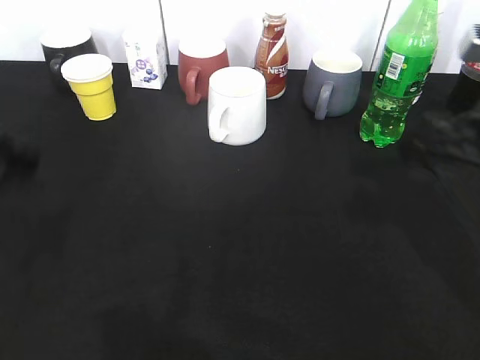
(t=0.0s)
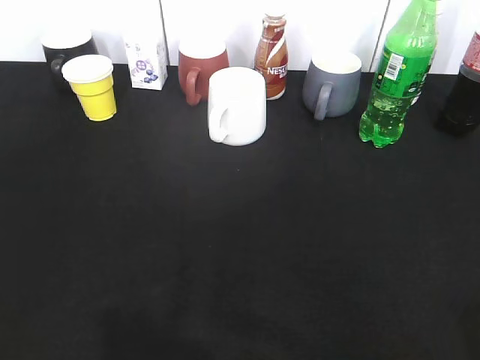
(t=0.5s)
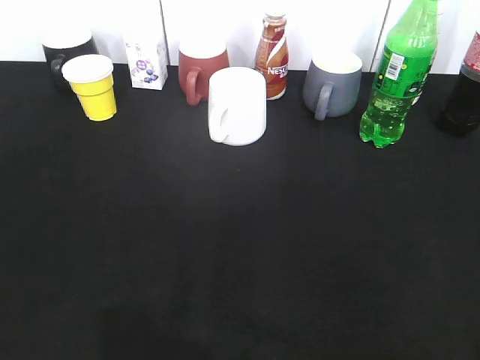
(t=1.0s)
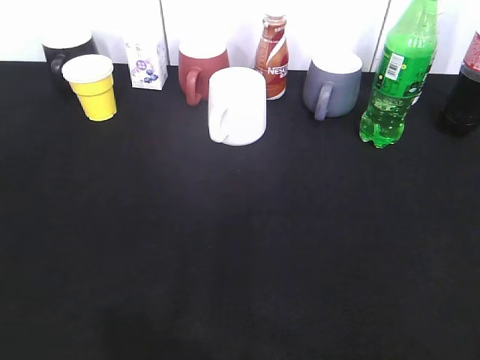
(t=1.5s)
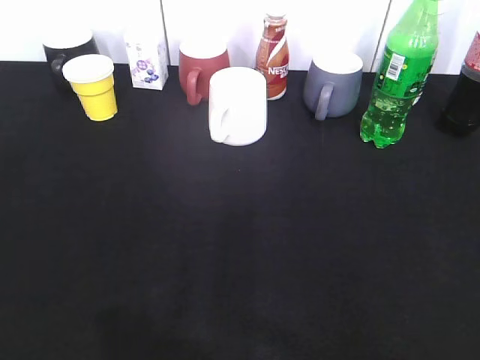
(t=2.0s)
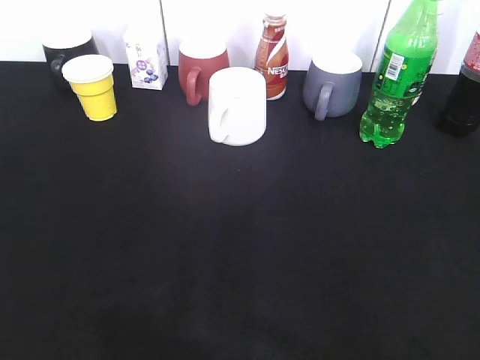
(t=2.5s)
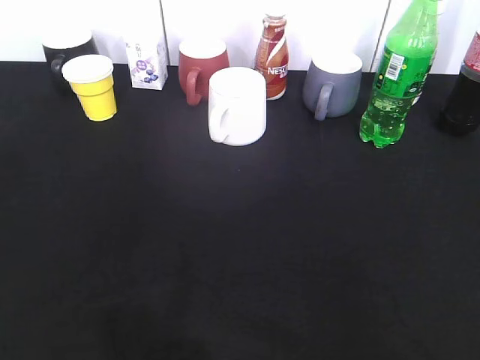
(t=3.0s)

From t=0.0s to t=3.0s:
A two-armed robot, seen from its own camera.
From t=0.0s to t=1.5s: The left gripper moves backward, some 15 cm; the right gripper goes roughly 25 cm backward.

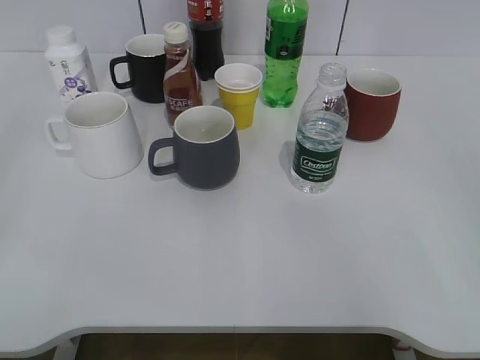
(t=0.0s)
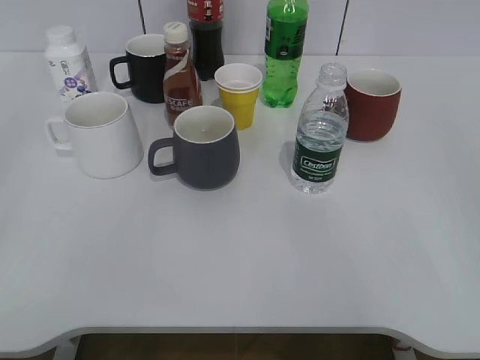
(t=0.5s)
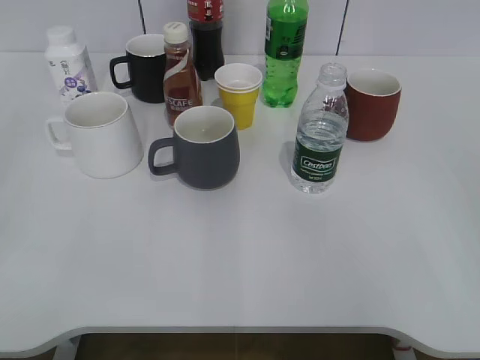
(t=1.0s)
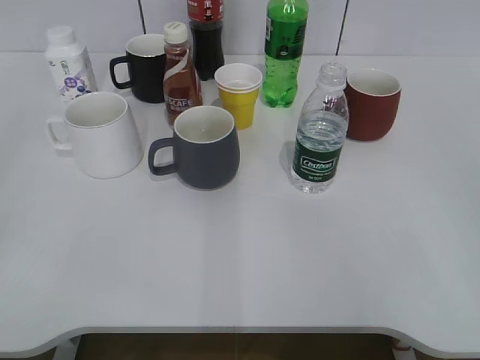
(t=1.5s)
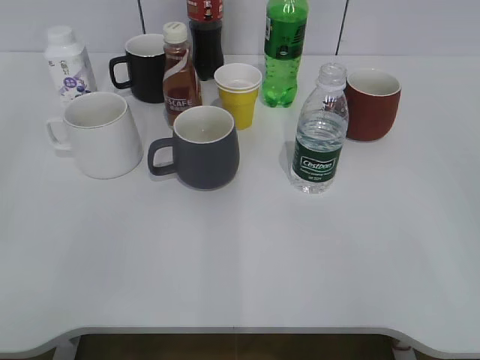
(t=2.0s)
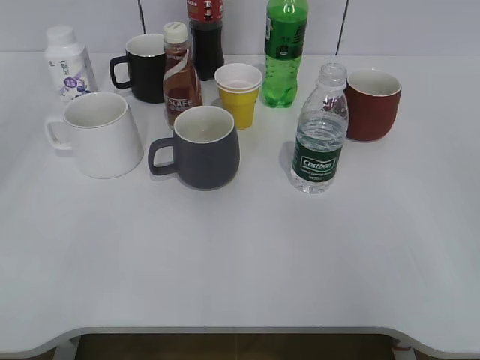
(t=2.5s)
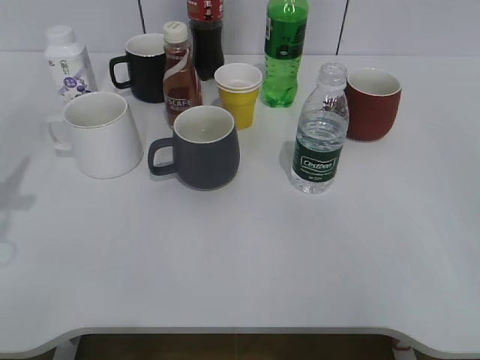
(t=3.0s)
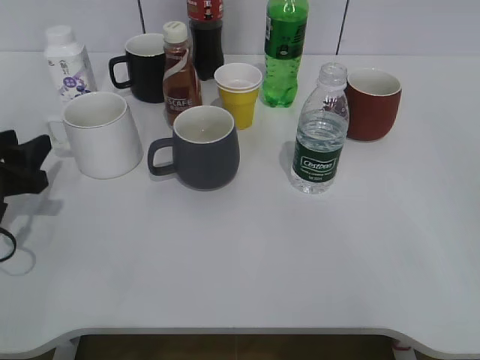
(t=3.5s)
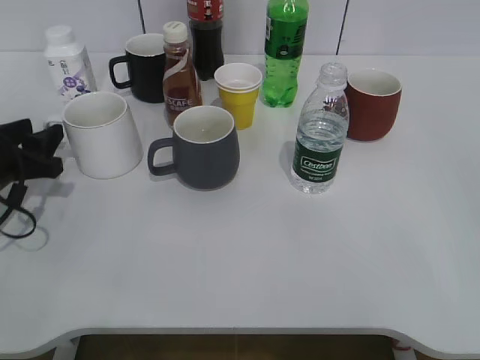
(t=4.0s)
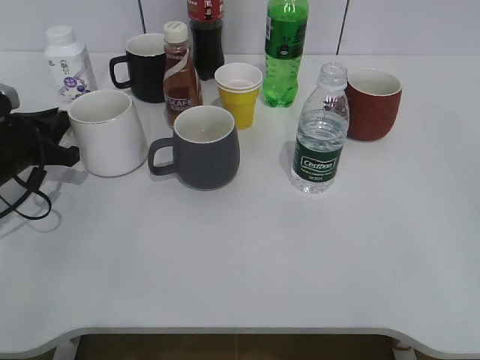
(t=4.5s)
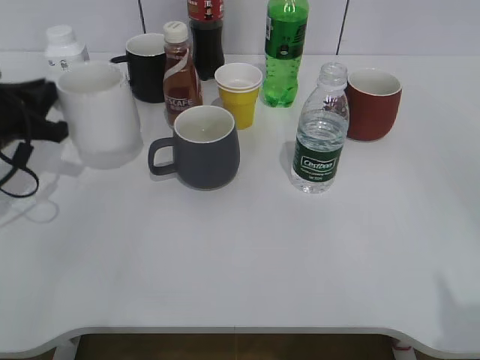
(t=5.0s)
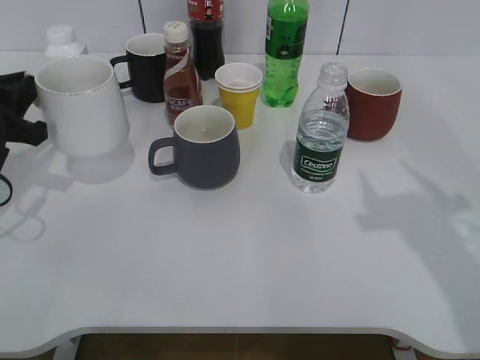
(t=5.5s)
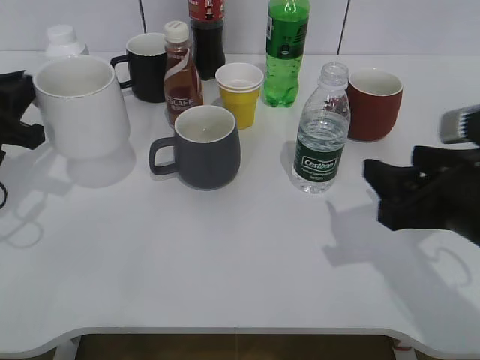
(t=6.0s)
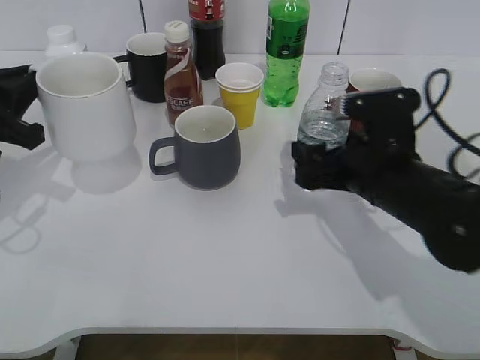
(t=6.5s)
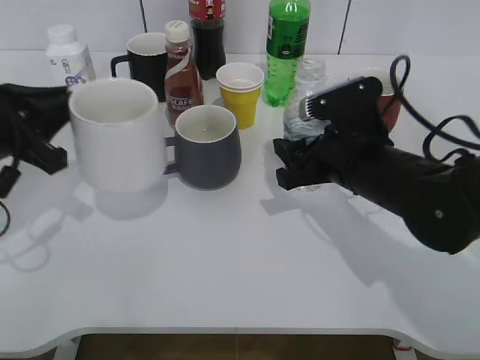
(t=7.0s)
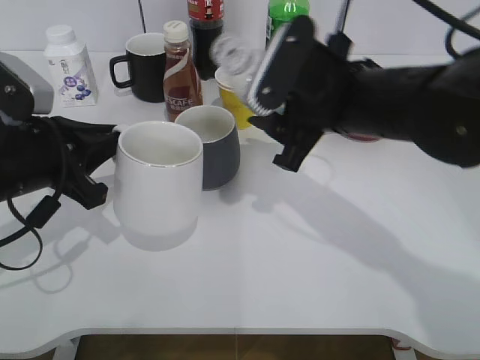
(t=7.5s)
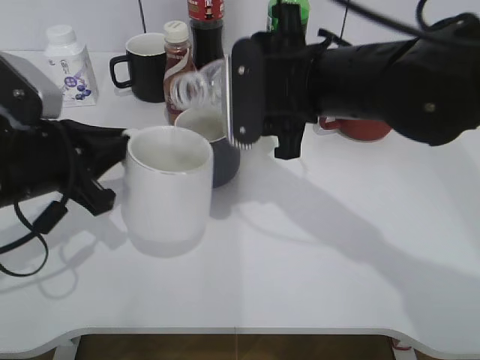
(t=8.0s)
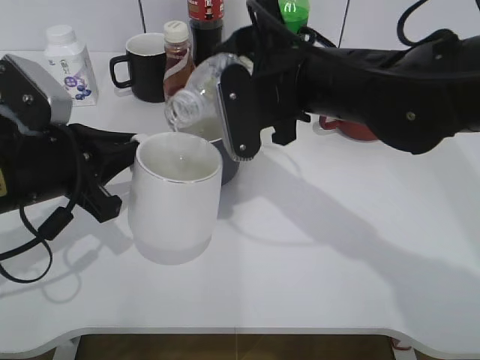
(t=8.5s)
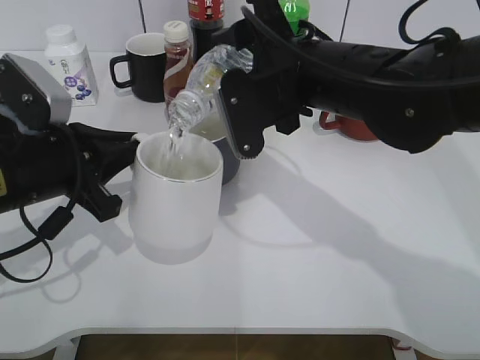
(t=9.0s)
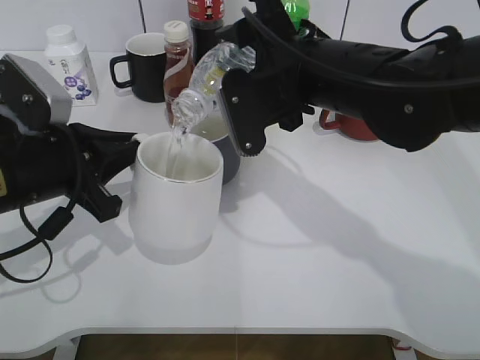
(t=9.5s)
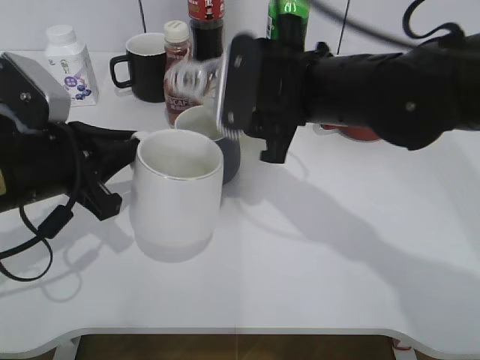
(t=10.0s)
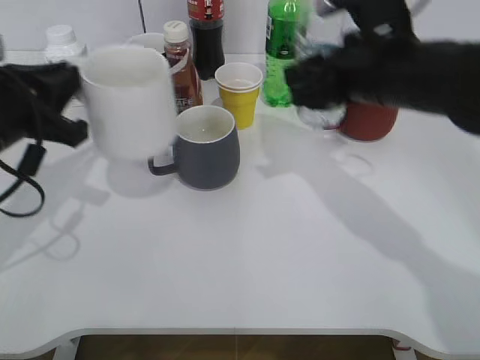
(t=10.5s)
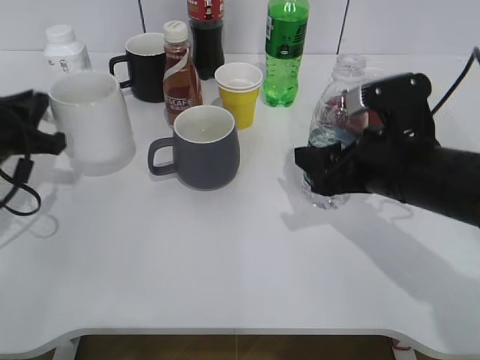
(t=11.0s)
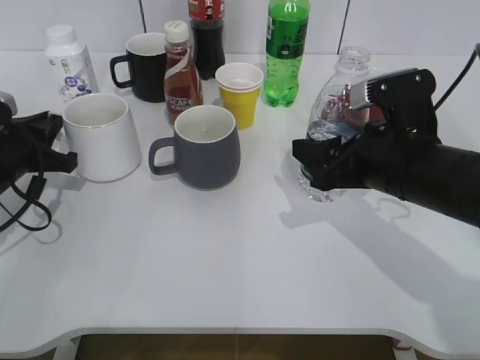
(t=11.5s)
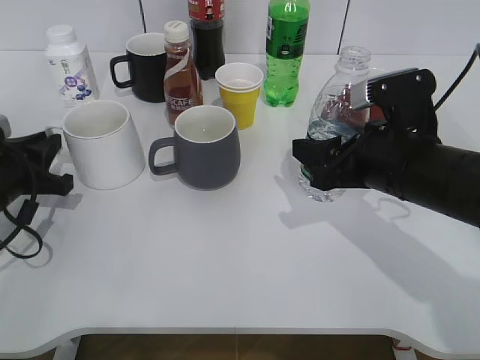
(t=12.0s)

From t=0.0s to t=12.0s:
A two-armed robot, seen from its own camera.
Step, from t=2.0s to t=4.0s: Grasp the white cup with left gripper.
Step, from t=4.5s to t=5.5s: Lift the white cup with left gripper.
Step, from t=6.0s to t=6.5s: Grasp the bottle with water with right gripper.
Step, from t=7.0s to t=9.5s: Pour the water from bottle to cup with right gripper.
Step, from t=10.0s to t=11.5s: Place the white cup on the table with left gripper.
From t=2.0s to t=4.0s: The left gripper moves forward and downward, approximately 35 cm.
From t=4.0s to t=6.0s: The left gripper heads upward, covering some 5 cm, and closes its fingers; the right gripper travels forward, to the left and downward by some 20 cm, and closes up.
From t=6.0s to t=8.0s: The left gripper moves to the right, about 10 cm. Meanwhile the right gripper shifts about 20 cm to the left and forward, and opens, then closes once more.
From t=10.0s to t=12.0s: The left gripper goes some 10 cm to the left and downward; the right gripper is displaced to the right and downward by about 10 cm.

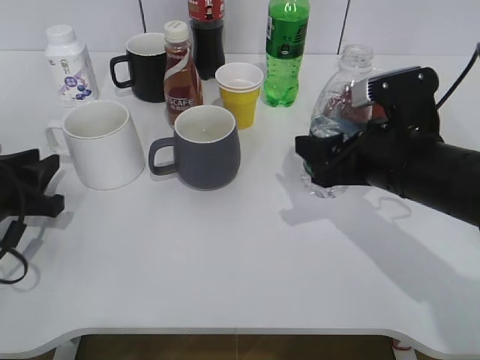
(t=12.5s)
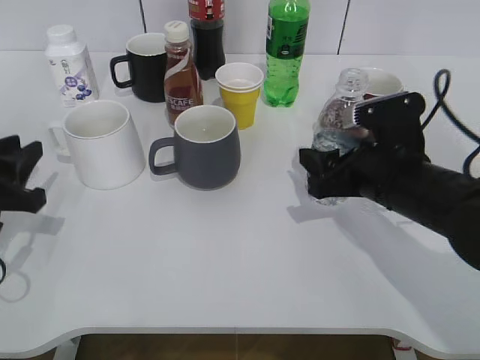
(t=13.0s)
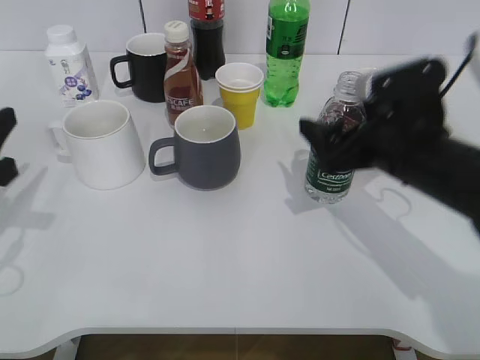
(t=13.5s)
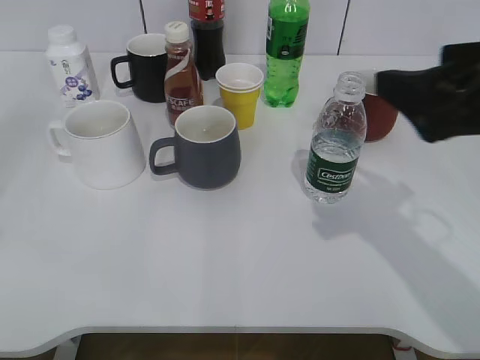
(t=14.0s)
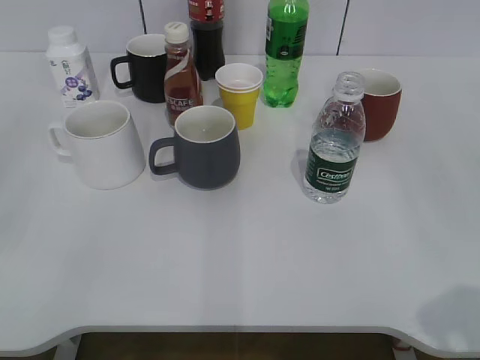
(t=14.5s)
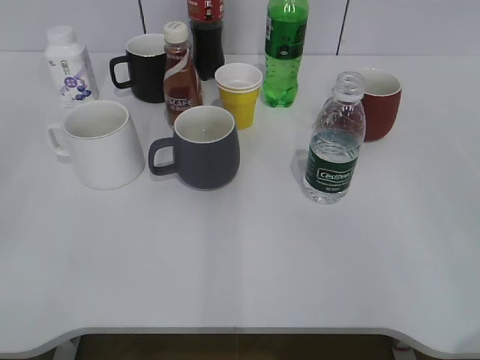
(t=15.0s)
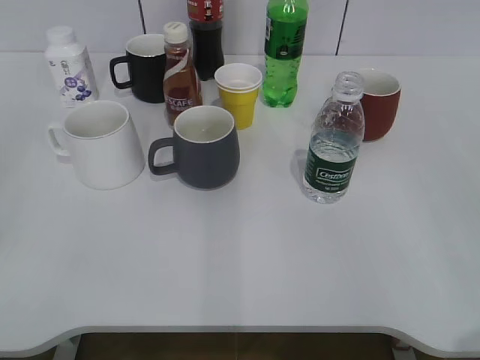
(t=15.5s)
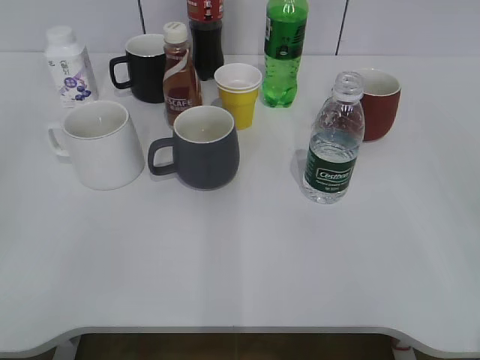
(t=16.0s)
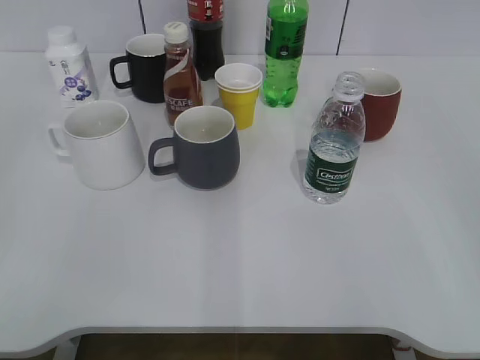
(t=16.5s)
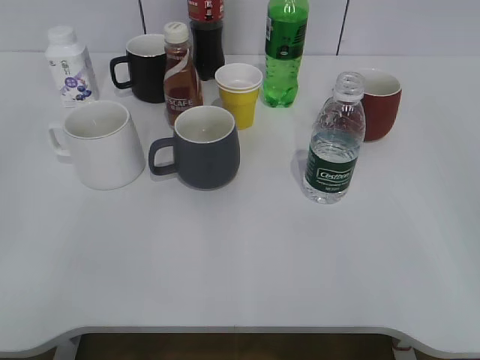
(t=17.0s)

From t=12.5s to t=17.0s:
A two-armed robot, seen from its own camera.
From t=12.5s to t=14.5s: The left gripper heads backward and upward, covering approximately 30 cm, and opens its fingers, while the right gripper moves backward, upward and to the right, some 25 cm, and opens up.
From t=14.5s to t=17.0s: The right gripper moves backward, approximately 5 cm, and closes.
